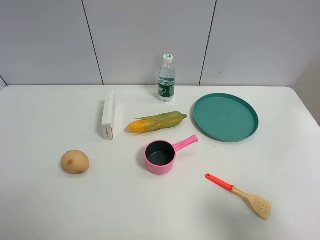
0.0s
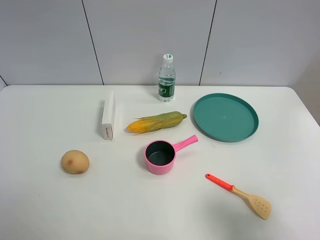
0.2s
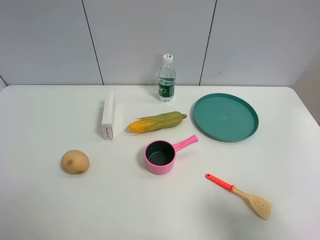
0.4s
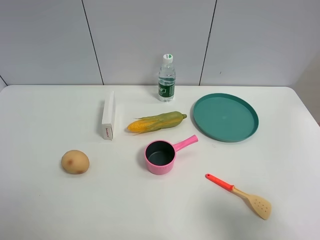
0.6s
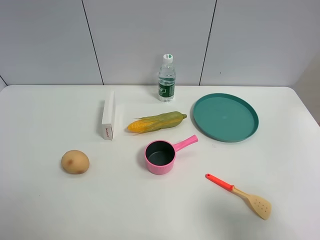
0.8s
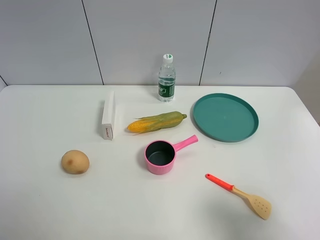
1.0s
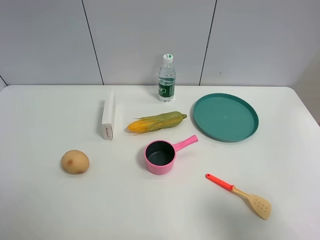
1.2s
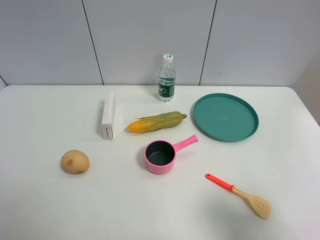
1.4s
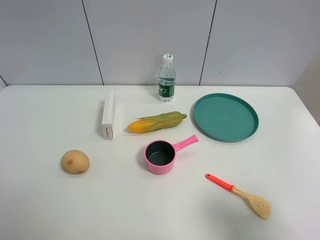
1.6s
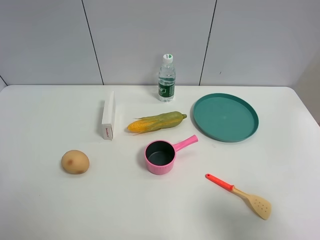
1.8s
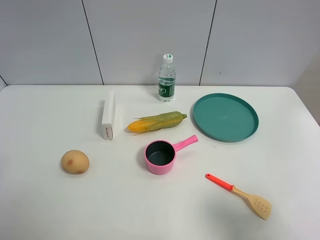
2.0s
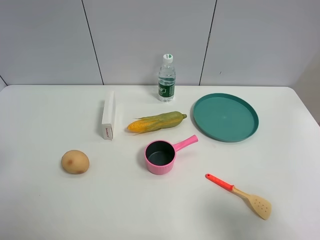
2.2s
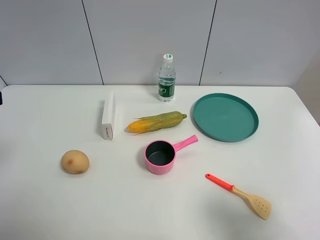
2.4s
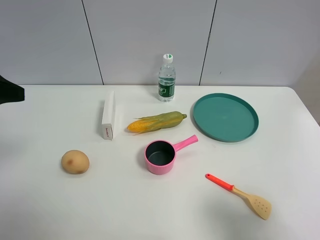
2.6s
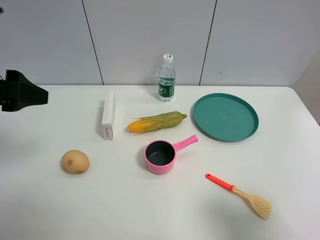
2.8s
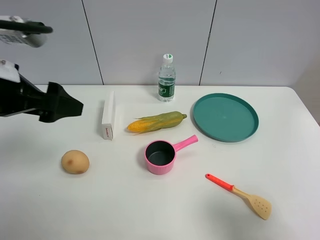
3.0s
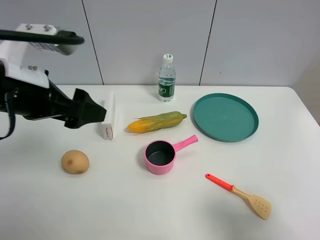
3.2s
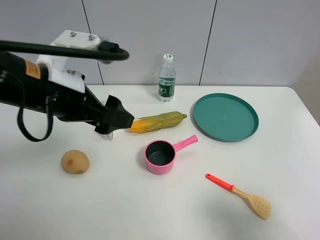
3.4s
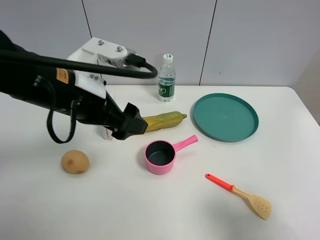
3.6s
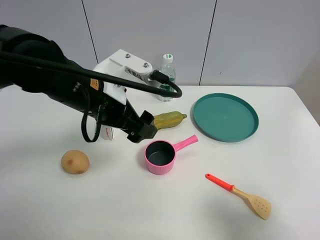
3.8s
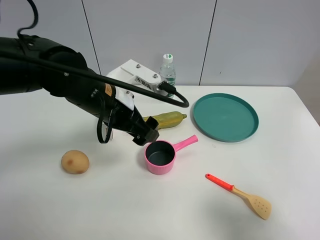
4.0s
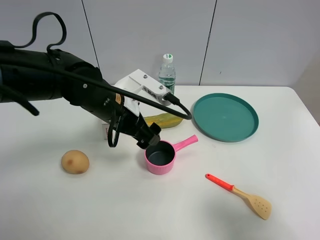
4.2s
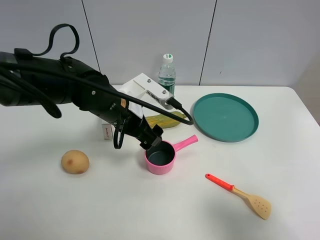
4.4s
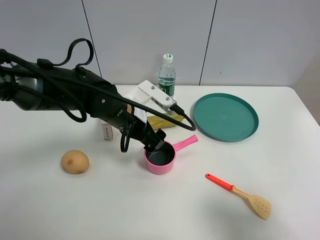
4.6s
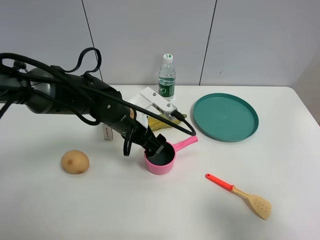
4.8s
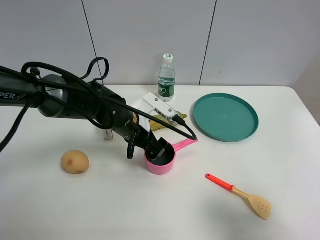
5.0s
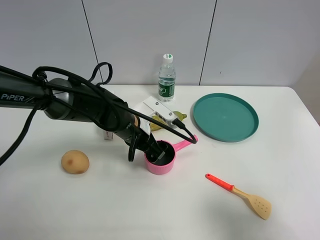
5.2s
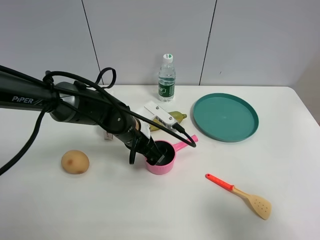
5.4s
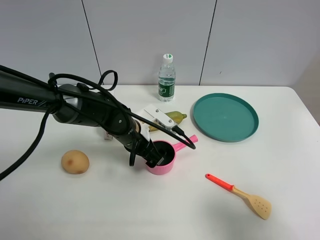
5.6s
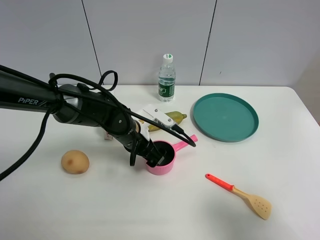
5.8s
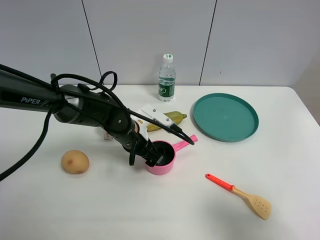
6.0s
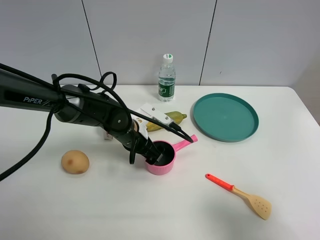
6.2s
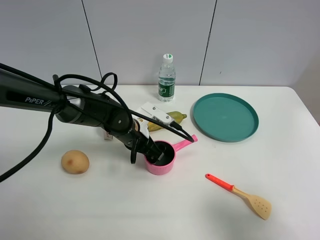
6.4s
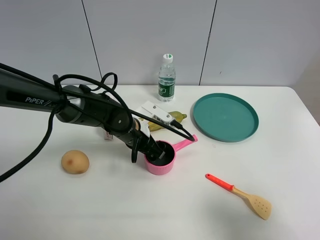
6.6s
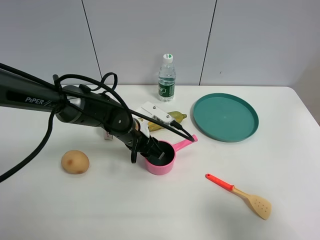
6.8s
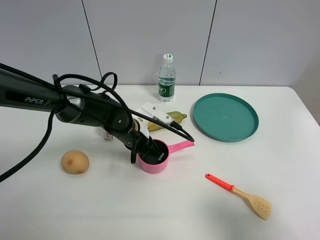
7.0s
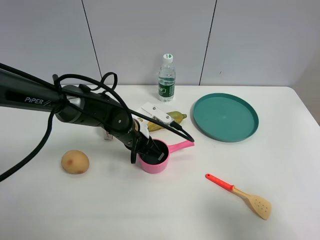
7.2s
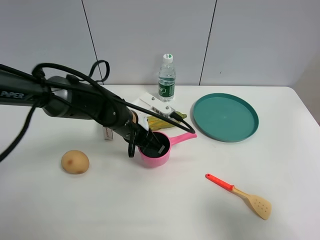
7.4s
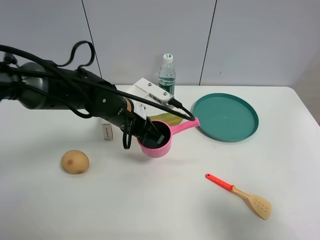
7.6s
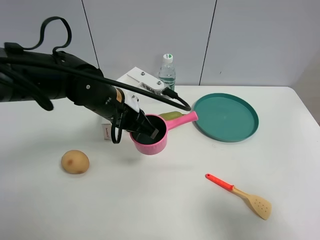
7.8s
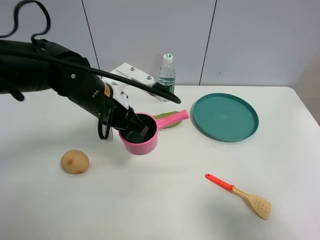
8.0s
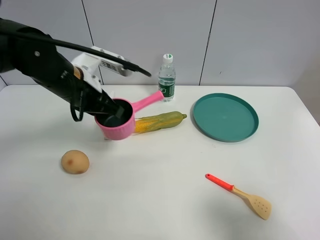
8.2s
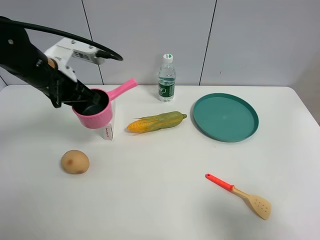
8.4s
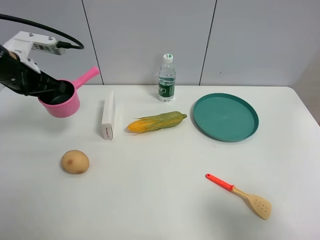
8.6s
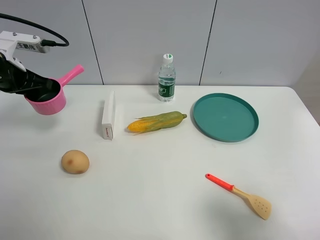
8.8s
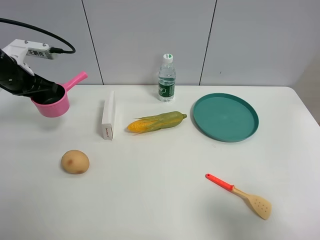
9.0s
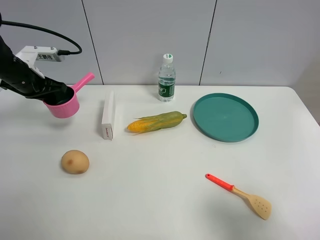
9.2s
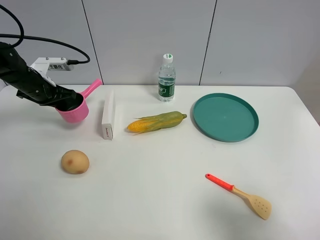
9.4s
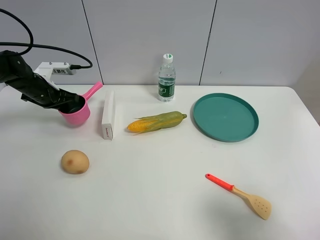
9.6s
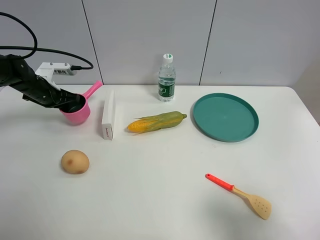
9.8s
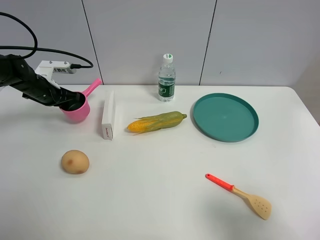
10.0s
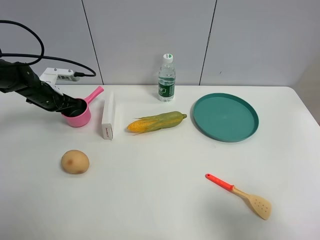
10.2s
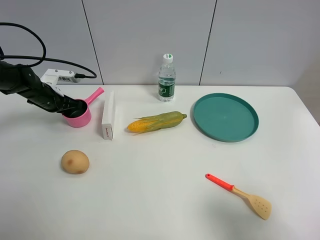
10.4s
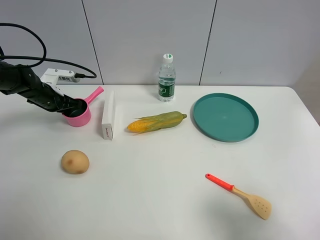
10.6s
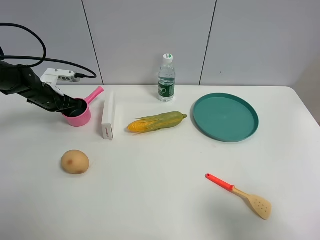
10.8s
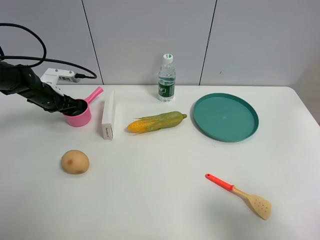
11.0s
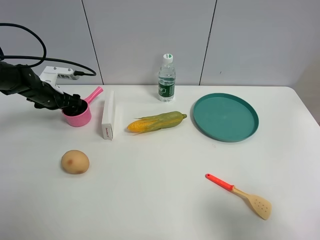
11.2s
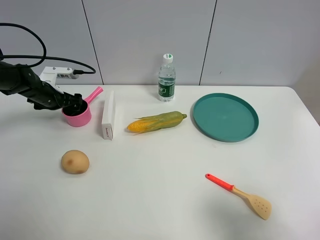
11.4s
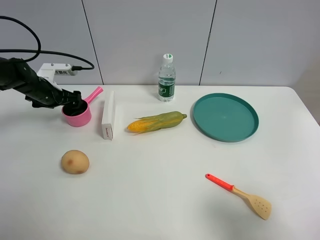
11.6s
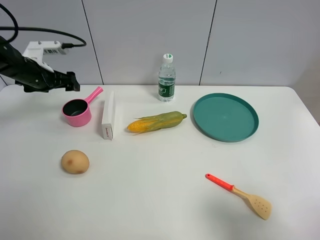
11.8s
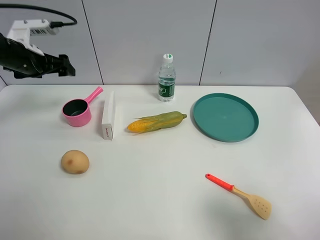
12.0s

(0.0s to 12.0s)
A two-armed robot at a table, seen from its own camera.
Task of the whole recording: the gripper move the object.
Step, 0.0s - 7.0s: Grasp the pink pot with the left gripper.
Step, 7.2s - 11.8s: Place the pink pot on the table with the left gripper.
1.6s - 3.0s: The left gripper is displaced forward and to the right by some 20 cm.
3.0s - 4.4s: The left gripper is displaced to the right, downward and forward by about 20 cm.
4.4s - 6.0s: The left gripper shifts about 10 cm downward.
6.0s - 7.6s: The left gripper moves upward, approximately 5 cm, and closes up.
7.6s - 9.0s: The left gripper moves to the left, about 25 cm.
9.0s - 10.4s: The left gripper travels downward and forward by some 15 cm.
10.4s - 12.0s: The left gripper is displaced upward by approximately 15 cm, and opens its fingers.

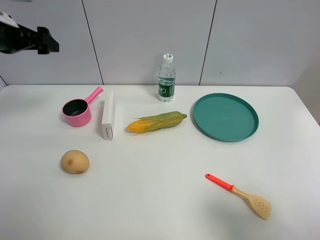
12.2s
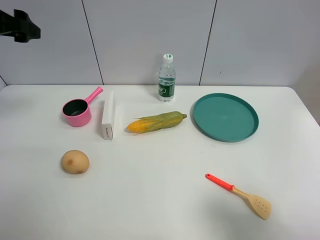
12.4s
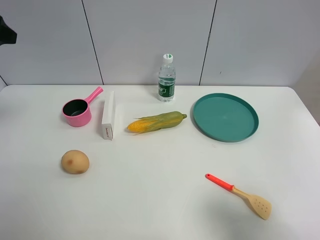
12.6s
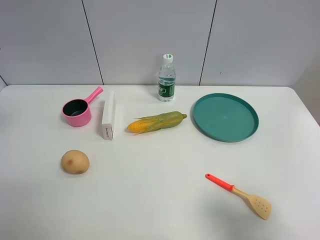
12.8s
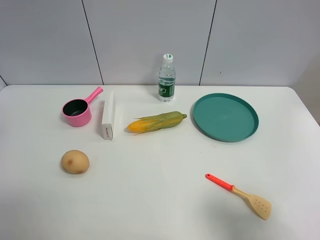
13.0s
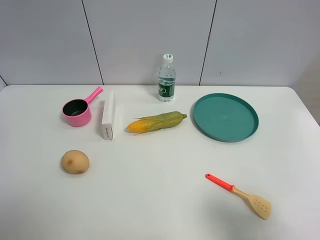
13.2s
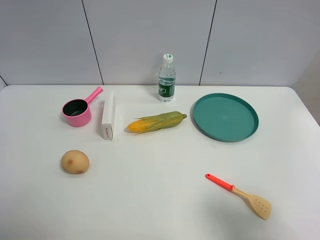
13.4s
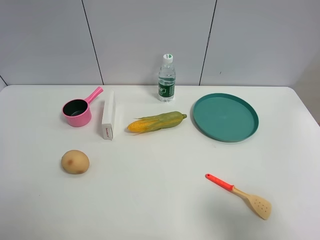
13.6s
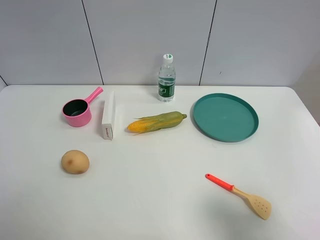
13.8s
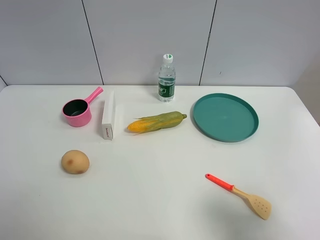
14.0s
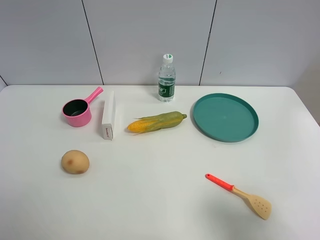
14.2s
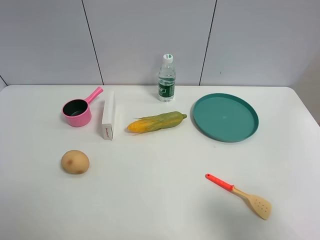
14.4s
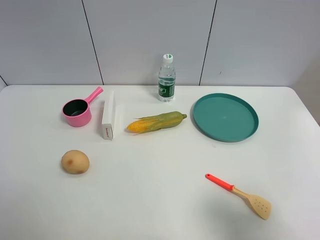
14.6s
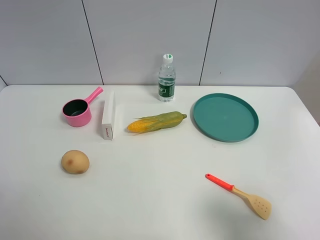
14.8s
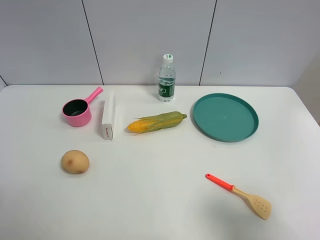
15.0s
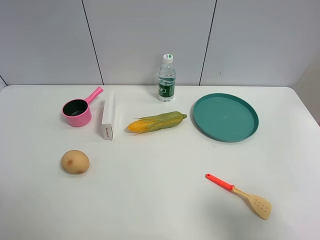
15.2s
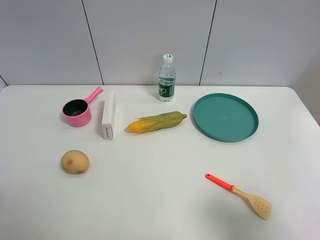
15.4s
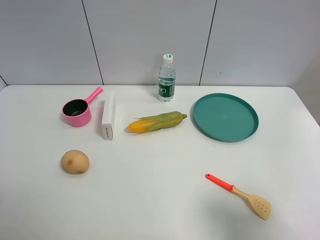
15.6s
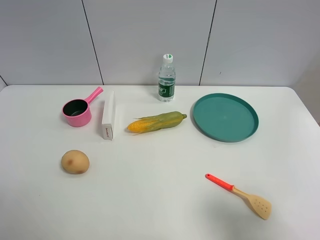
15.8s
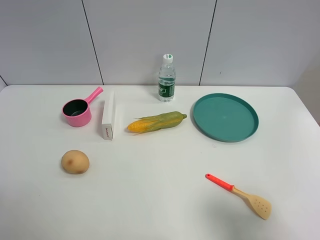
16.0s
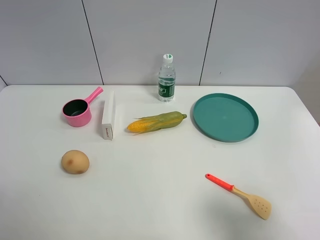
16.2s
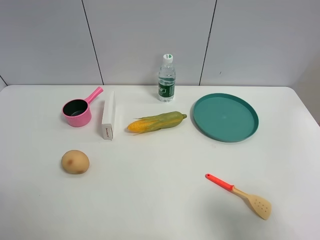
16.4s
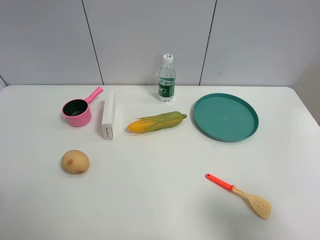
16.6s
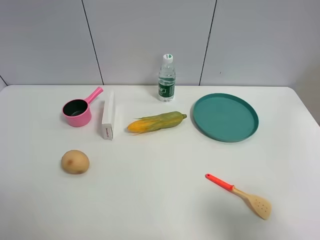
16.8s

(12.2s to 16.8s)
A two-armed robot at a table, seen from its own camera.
Task of the whole recording: the gripper move the object.
12.2s - 13.8s: The left gripper shifts approximately 30 cm backward.
15.2s - 16.8s: Neither gripper changes place.

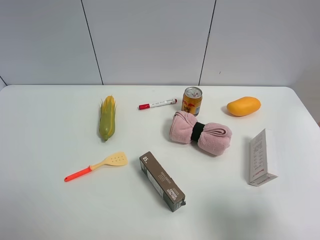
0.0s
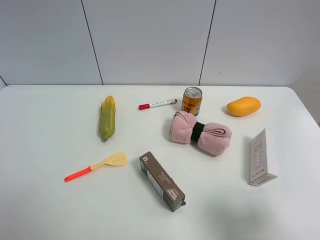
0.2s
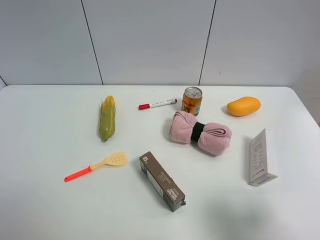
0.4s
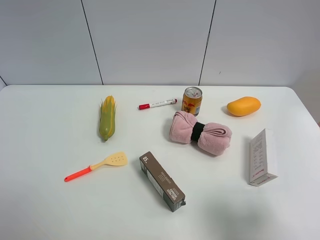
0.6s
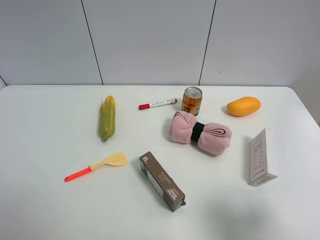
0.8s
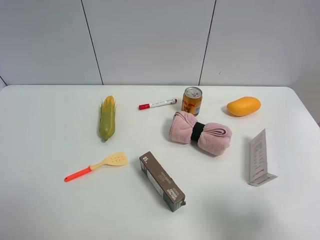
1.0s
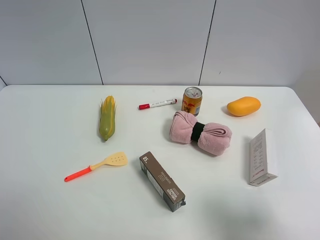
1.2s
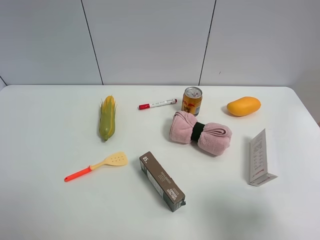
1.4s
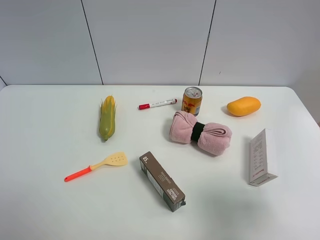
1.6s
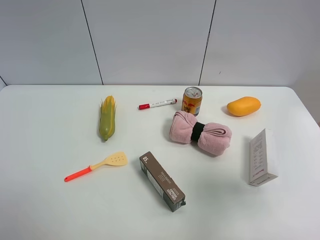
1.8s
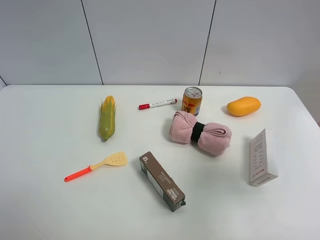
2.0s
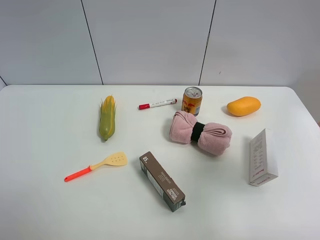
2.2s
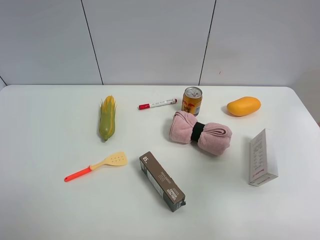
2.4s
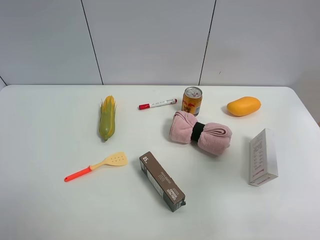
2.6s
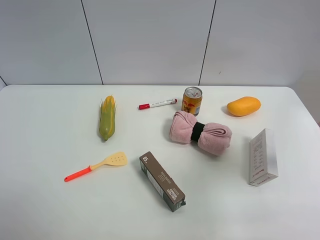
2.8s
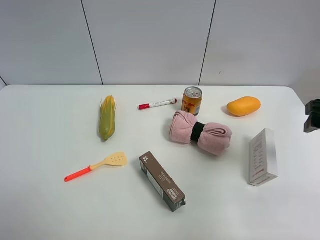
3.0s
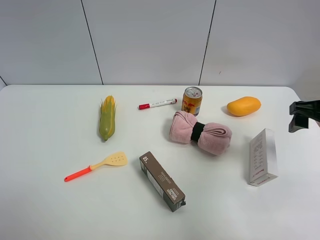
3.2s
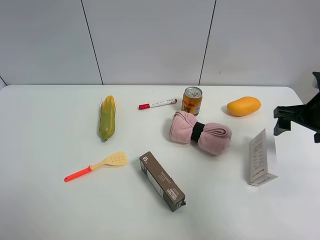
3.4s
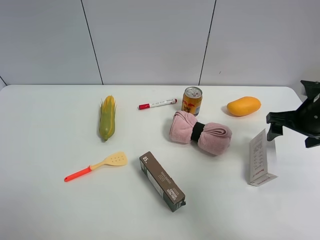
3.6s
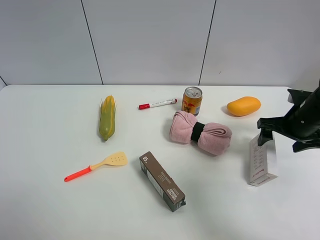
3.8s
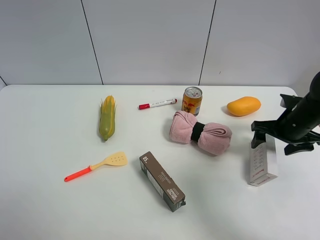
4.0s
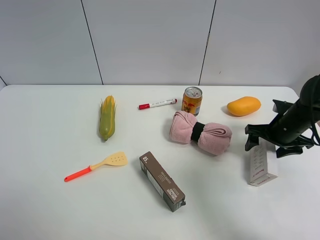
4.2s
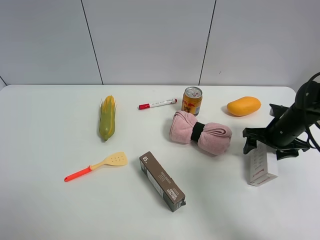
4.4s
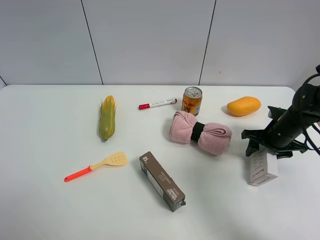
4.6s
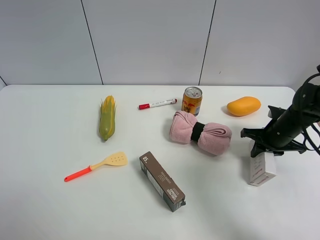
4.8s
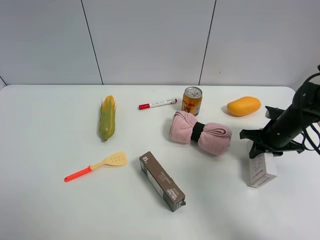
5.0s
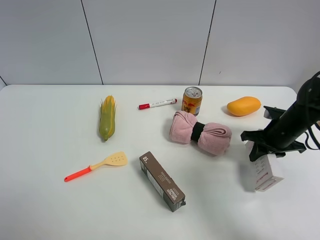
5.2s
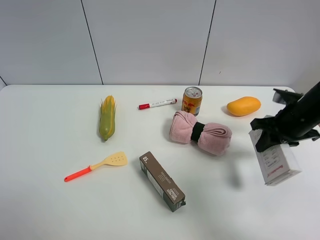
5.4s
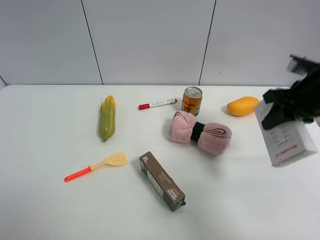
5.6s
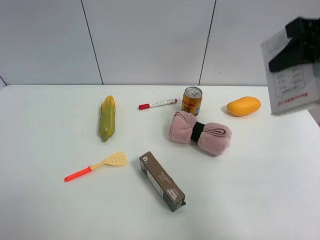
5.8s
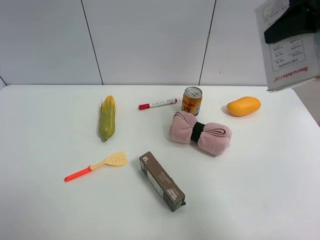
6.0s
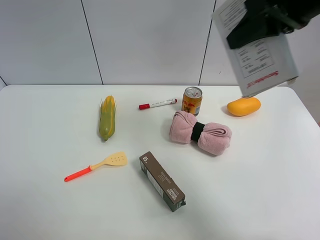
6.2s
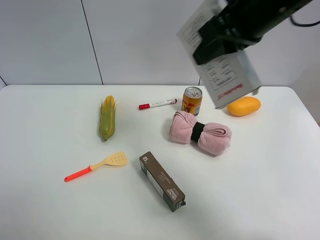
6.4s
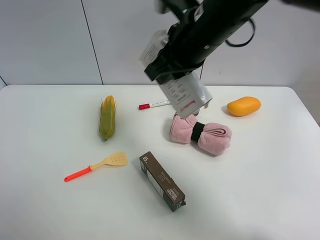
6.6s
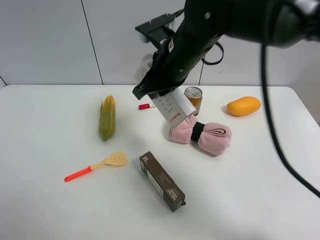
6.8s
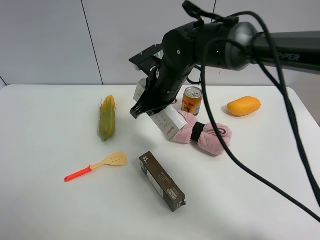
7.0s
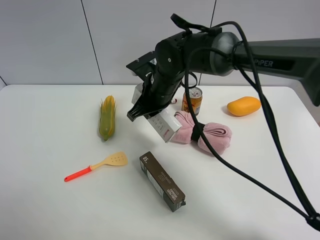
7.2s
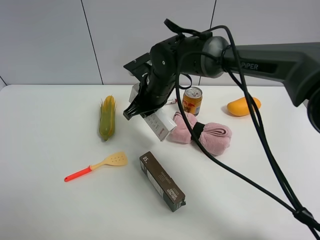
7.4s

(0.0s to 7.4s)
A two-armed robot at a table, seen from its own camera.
Task of the whole recording: the gripper move the object.
Step, 0.0s - 4.8s: Grasp the USB box with the right gripper.
1.4s - 3.0s: The right gripper travels forward by approximately 20 cm.
3.0s - 4.4s: The right gripper travels downward and forward by some 20 cm.
4.4s - 6.0s: The right gripper travels upward by roughly 30 cm, and closes its fingers.
6.0s - 7.4s: The right gripper is displaced to the left and downward by approximately 35 cm.
